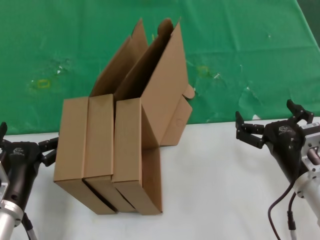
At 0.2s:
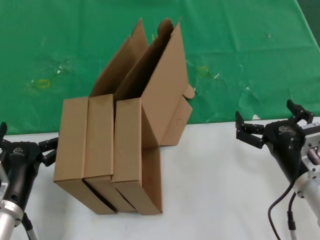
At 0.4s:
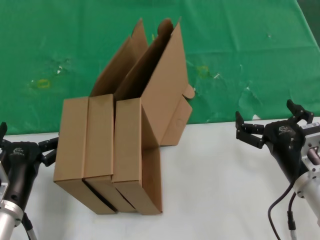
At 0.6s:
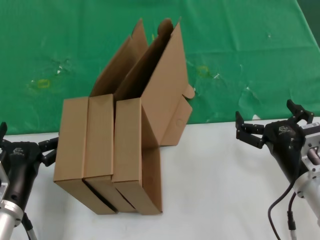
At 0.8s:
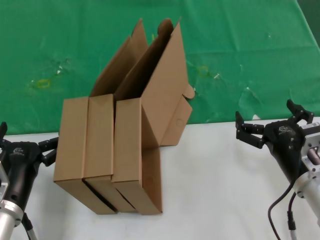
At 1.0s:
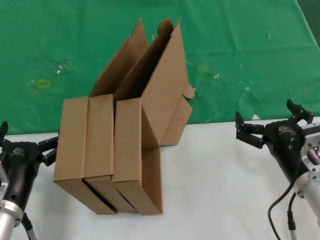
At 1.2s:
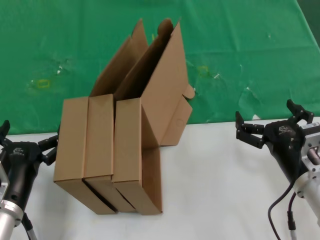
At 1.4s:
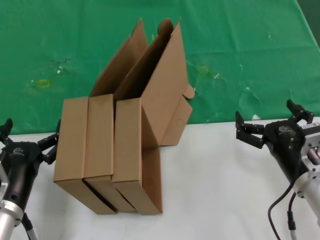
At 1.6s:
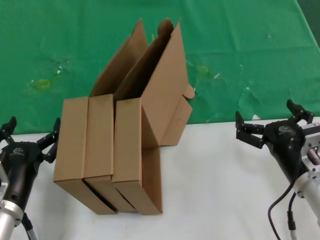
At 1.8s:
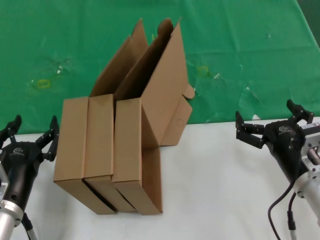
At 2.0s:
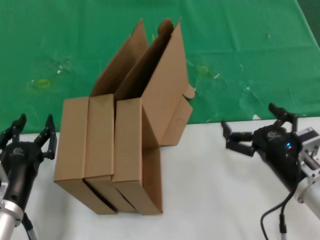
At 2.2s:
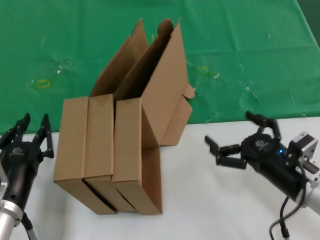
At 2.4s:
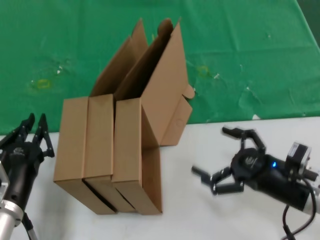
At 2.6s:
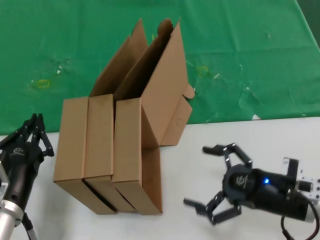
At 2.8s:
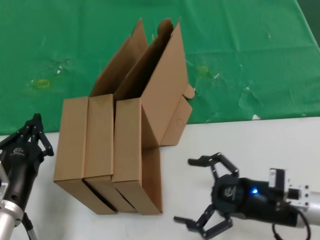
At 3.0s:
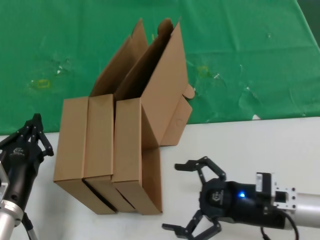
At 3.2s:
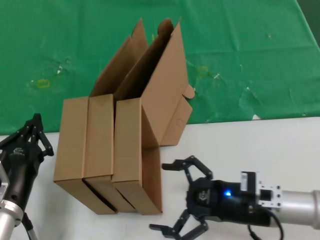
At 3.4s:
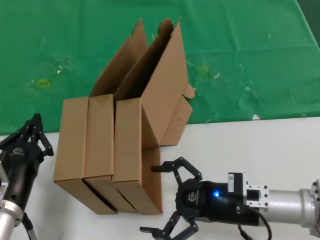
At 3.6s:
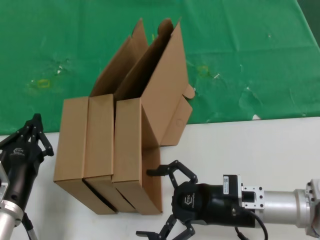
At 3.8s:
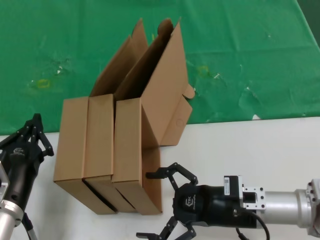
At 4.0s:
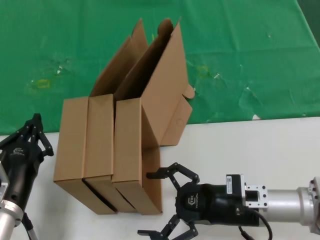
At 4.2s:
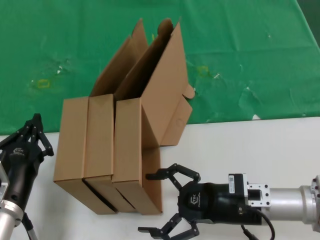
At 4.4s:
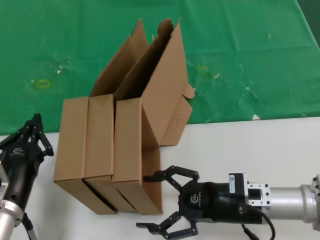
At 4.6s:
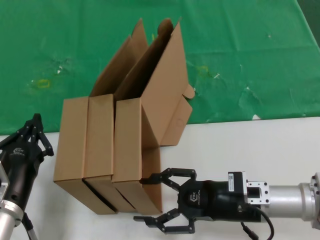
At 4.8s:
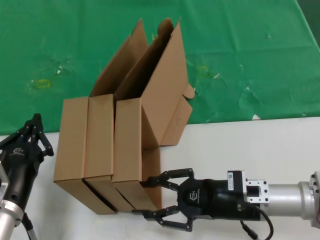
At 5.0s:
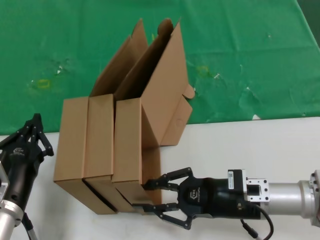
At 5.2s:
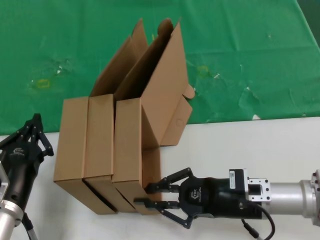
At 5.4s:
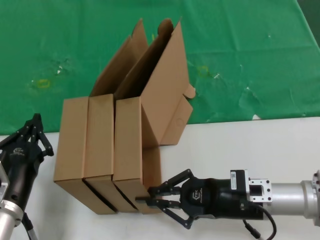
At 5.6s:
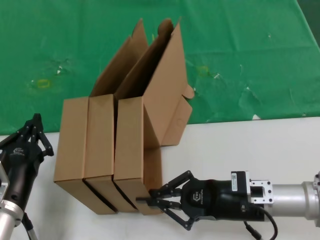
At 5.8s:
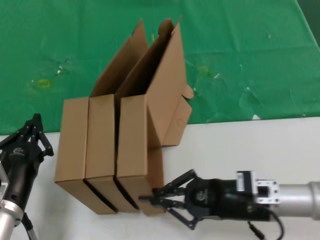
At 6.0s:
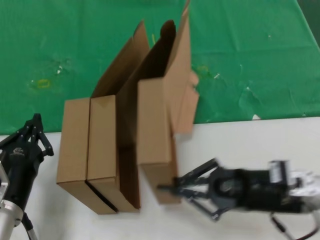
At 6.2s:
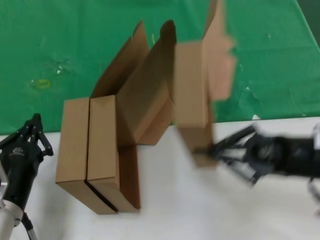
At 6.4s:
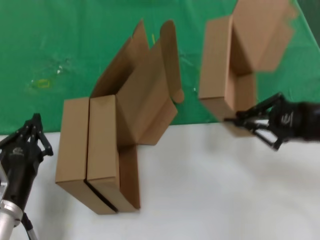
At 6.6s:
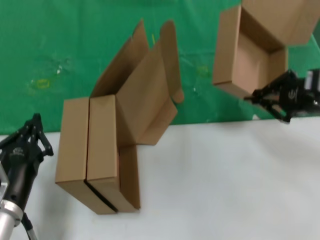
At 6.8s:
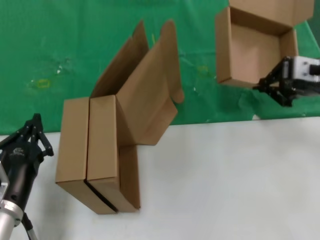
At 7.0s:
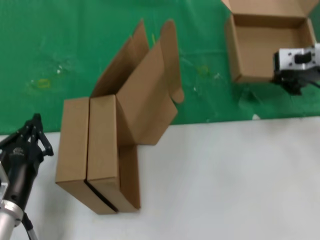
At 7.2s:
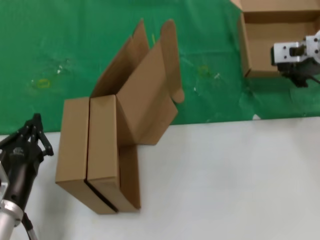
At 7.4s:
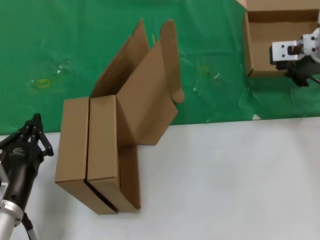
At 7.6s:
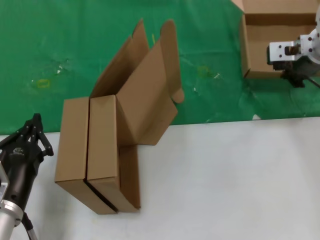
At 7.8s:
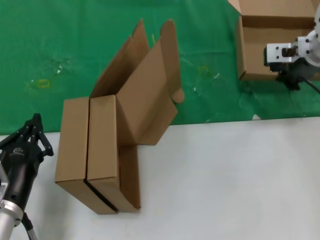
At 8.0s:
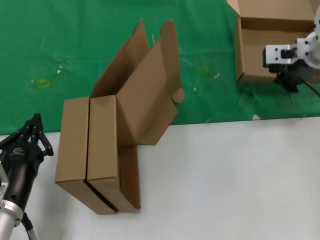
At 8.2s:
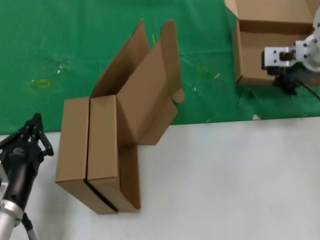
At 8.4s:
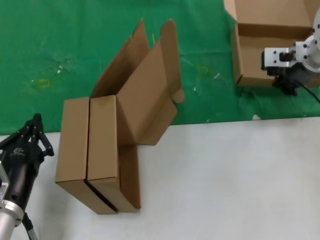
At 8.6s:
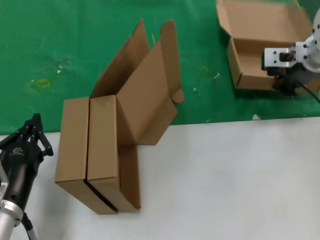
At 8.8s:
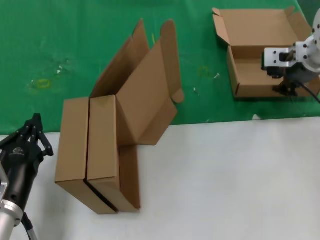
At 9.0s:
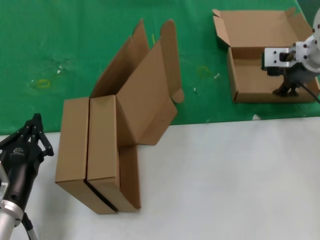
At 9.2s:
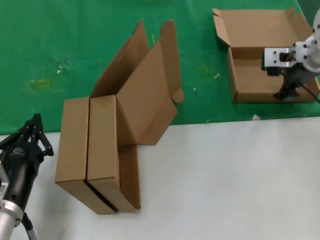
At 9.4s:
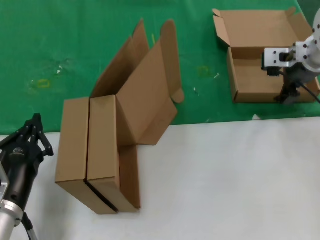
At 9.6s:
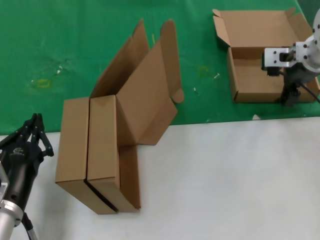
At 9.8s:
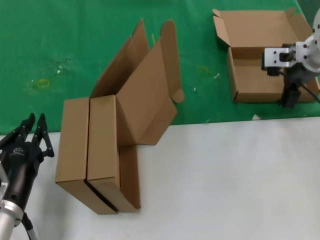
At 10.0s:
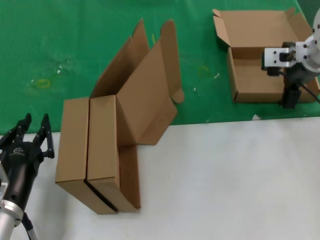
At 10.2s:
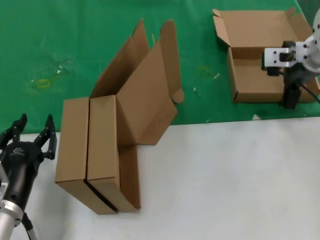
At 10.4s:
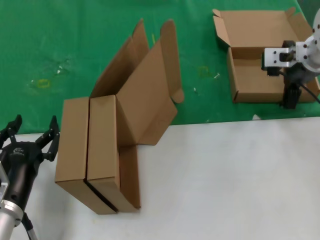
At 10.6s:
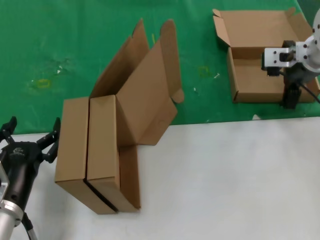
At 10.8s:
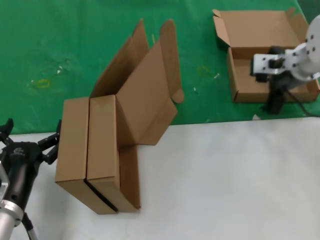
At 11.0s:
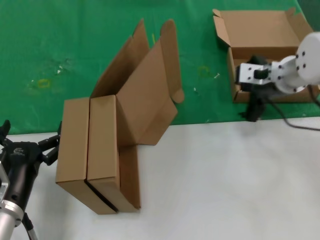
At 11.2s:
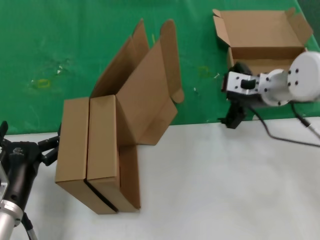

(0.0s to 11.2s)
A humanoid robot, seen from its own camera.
Task of the whole recording: pick up the paper box and put it at the back.
Step, 0.0s - 5.6s: Grasp the paper box.
Step, 5.8s - 9.0s: Place the paper box on the table.
0.0s - 1.6s: Neither hand changes place.
3.2s - 4.8s: The hands move only a little.
4.8s - 6.4s: The right hand shifts roughly 20 cm upward and to the right.
6.4s - 8.0s: The right hand goes some 20 cm forward, upward and to the left.
8.0s - 9.6s: Both hands stay about where they are.
9.6s - 11.2s: The right hand heads downward, covering approximately 5 cm.

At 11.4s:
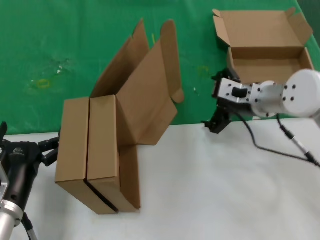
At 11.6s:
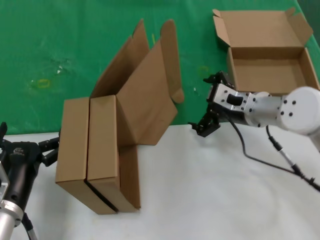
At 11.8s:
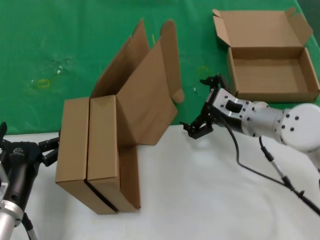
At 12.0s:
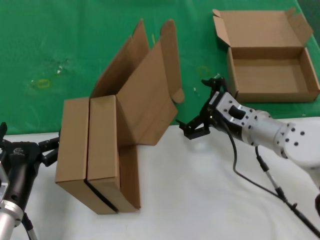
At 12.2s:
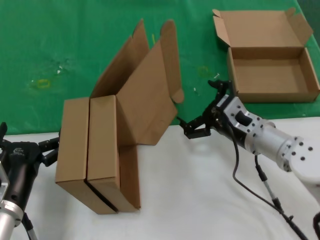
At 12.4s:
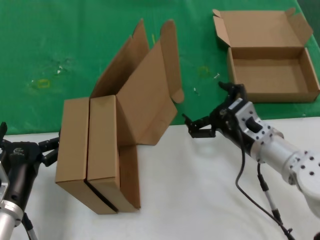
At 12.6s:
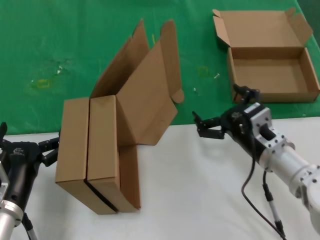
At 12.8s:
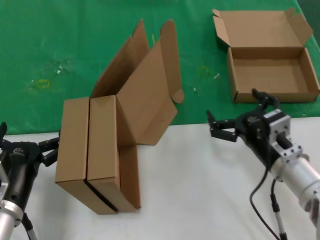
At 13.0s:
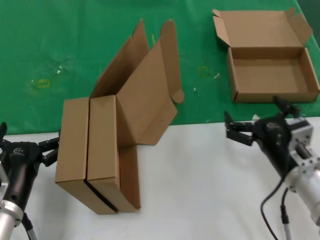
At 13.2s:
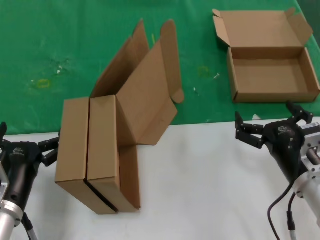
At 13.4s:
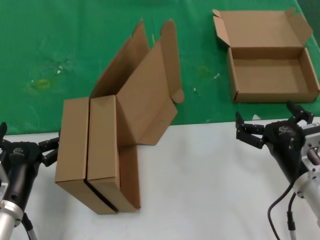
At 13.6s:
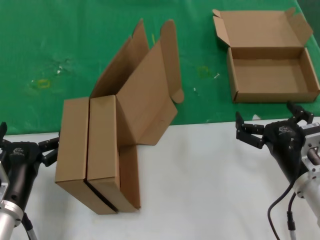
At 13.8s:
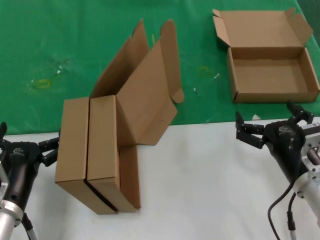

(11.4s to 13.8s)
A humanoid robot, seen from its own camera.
Task of the whole recording: pick up the paper box and put it at the back.
11.4s - 12.6s: The right hand shifts roughly 15 cm backward and downward.
12.6s - 13.8s: The right hand heads backward, covering some 5 cm.
